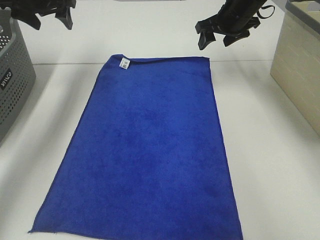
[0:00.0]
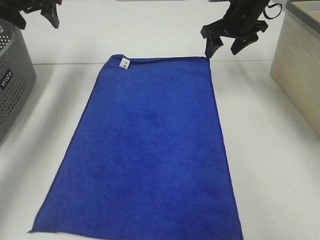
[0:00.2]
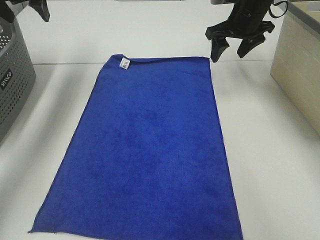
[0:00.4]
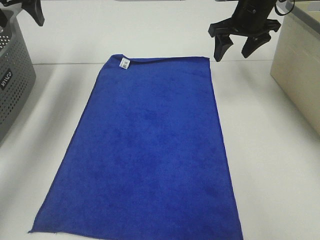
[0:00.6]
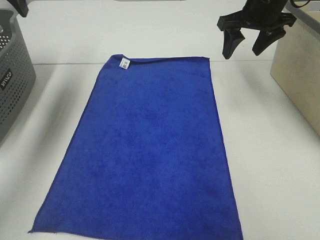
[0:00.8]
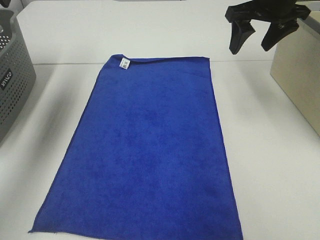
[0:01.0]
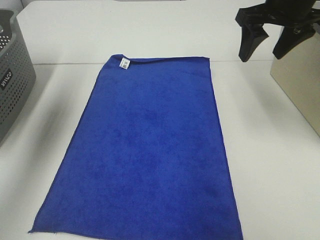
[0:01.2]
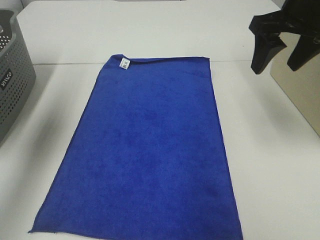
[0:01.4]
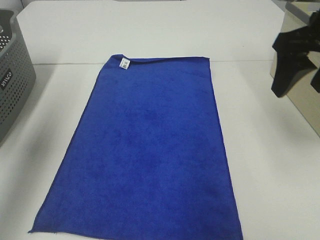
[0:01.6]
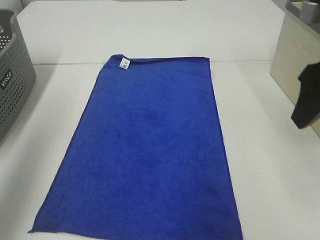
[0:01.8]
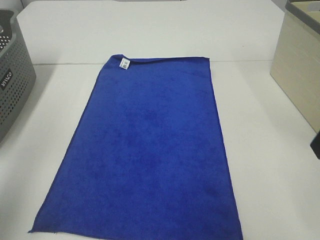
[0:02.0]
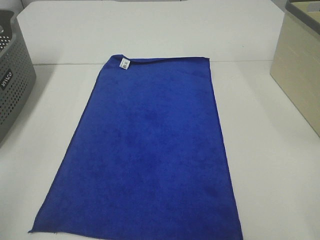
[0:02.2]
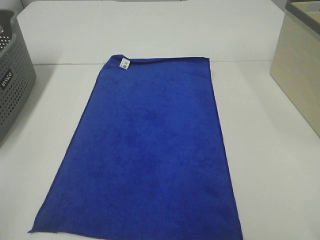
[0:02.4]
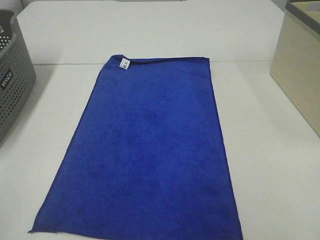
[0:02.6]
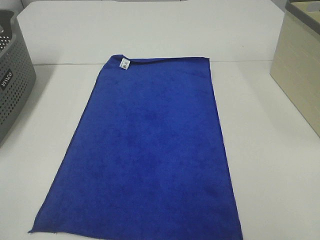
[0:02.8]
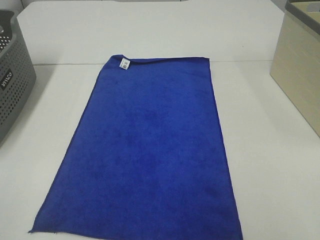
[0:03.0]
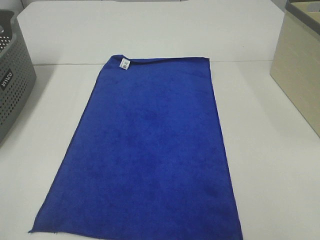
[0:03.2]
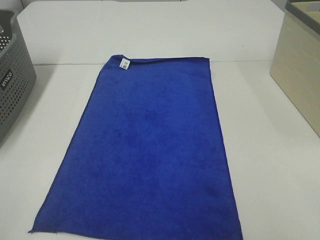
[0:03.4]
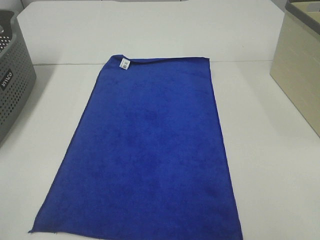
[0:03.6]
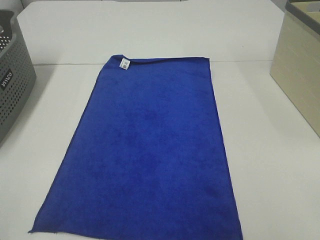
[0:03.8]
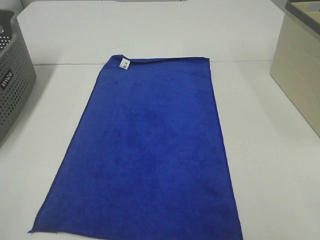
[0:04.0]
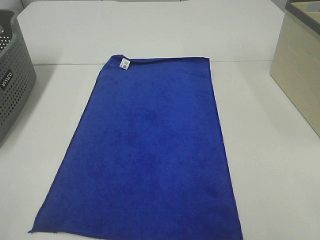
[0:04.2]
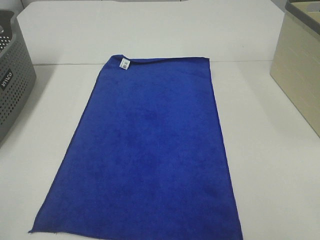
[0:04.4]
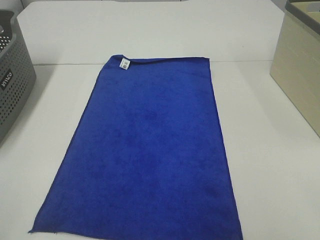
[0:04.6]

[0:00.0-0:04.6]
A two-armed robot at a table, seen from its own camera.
Task of the whole recording: Remove the towel and place it.
0:00.0 to 0:01.6: Both grippers travel together backward, approximately 25 cm.
0:01.6 to 0:03.0: The two grippers go some 25 cm backward.

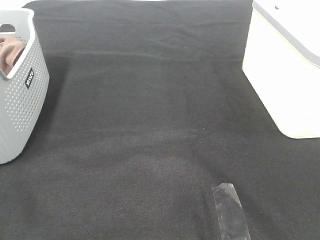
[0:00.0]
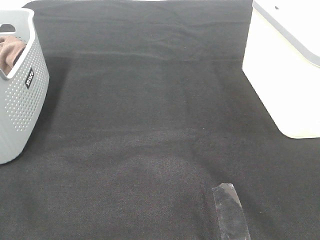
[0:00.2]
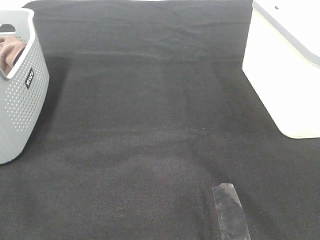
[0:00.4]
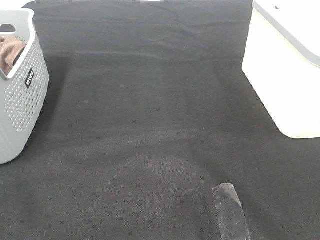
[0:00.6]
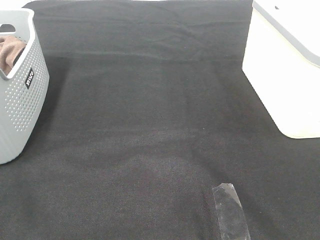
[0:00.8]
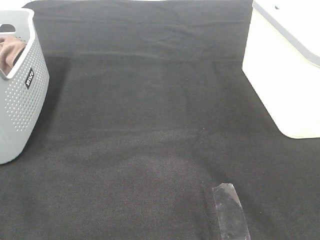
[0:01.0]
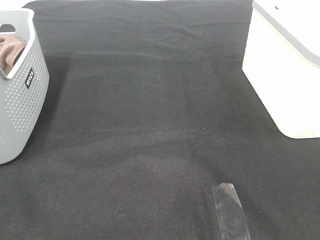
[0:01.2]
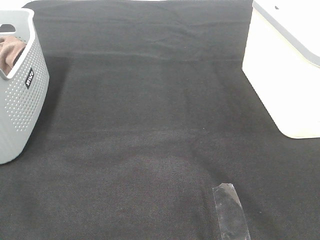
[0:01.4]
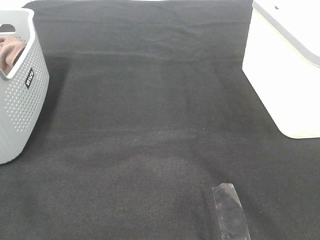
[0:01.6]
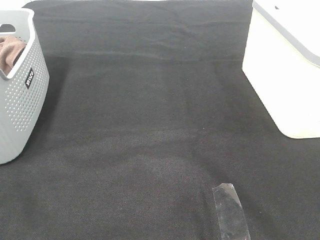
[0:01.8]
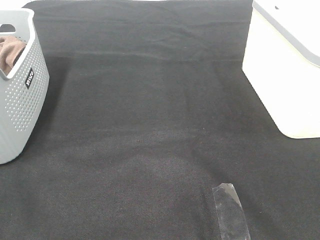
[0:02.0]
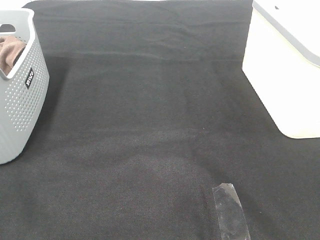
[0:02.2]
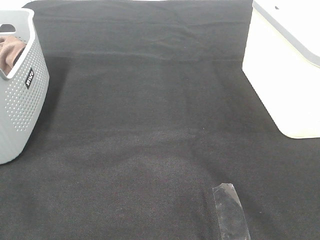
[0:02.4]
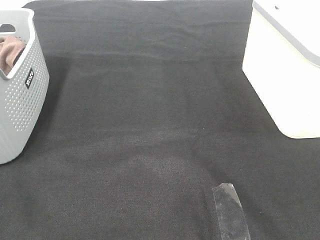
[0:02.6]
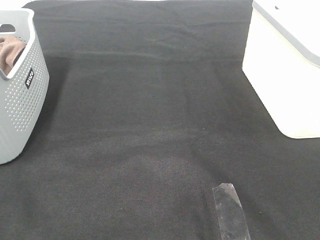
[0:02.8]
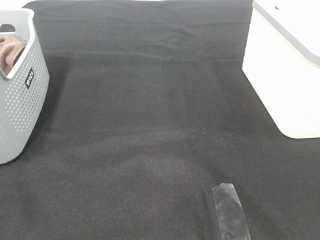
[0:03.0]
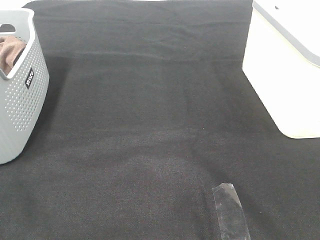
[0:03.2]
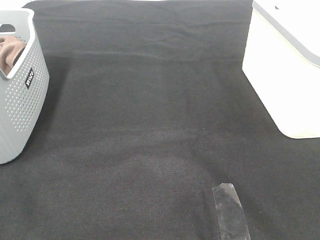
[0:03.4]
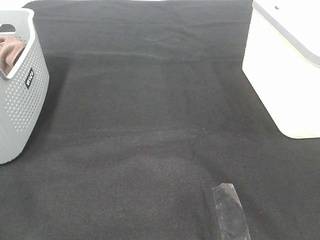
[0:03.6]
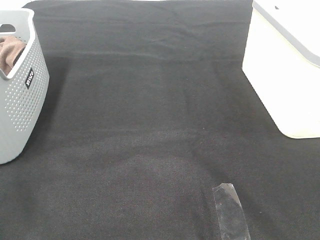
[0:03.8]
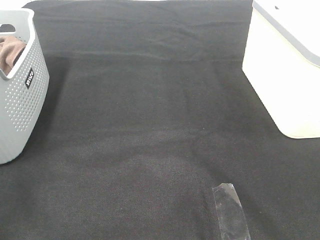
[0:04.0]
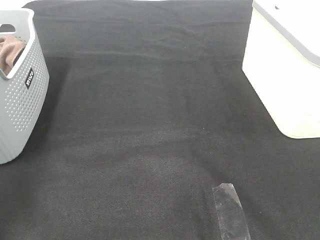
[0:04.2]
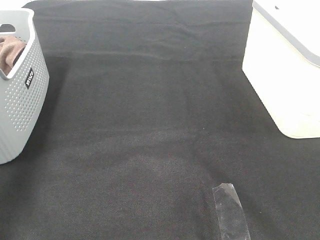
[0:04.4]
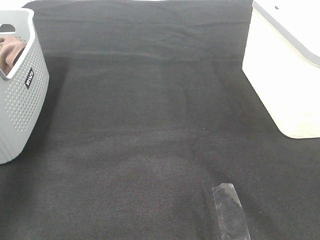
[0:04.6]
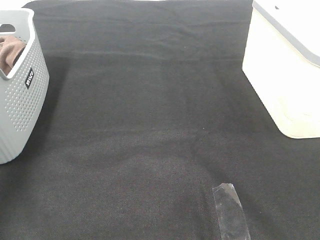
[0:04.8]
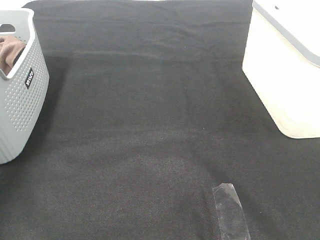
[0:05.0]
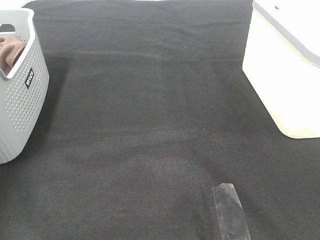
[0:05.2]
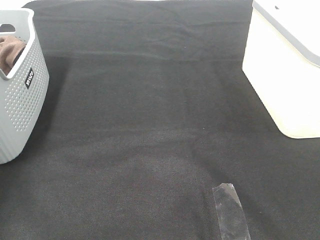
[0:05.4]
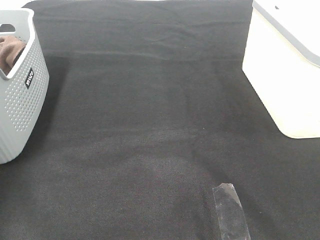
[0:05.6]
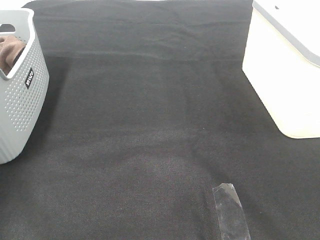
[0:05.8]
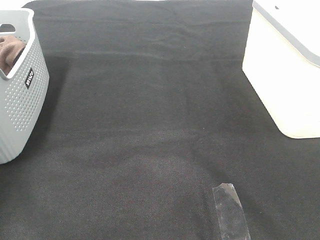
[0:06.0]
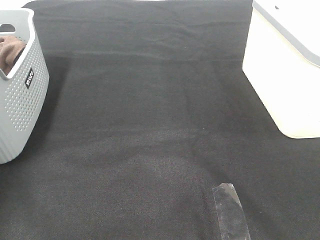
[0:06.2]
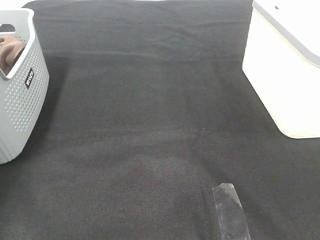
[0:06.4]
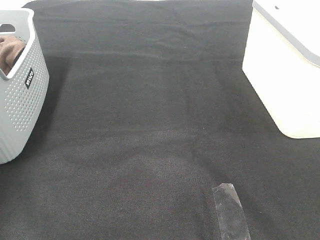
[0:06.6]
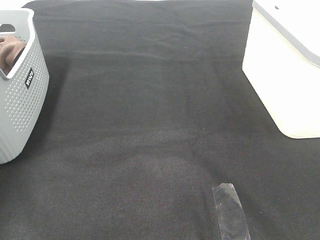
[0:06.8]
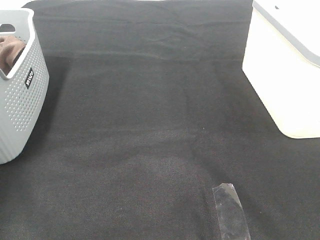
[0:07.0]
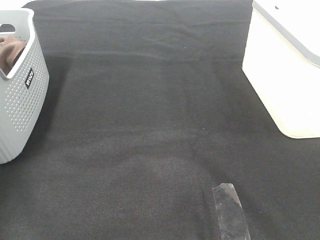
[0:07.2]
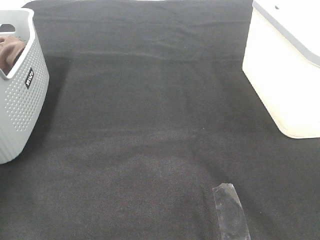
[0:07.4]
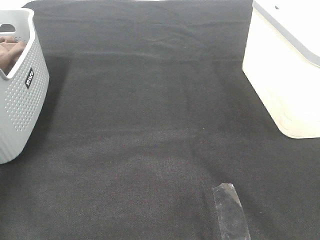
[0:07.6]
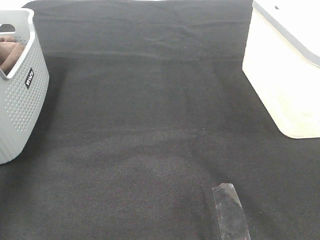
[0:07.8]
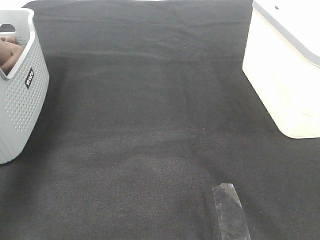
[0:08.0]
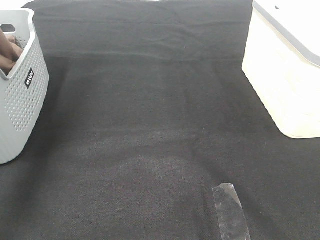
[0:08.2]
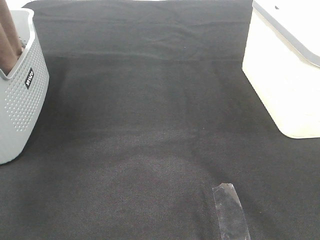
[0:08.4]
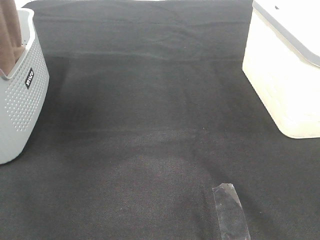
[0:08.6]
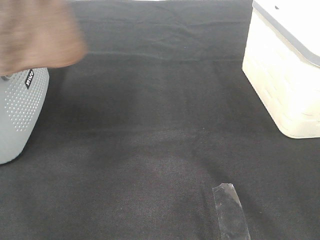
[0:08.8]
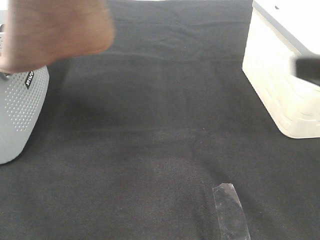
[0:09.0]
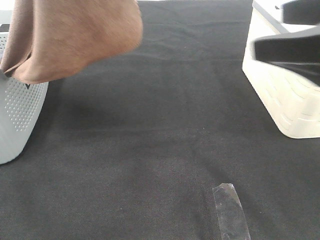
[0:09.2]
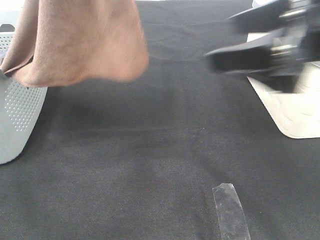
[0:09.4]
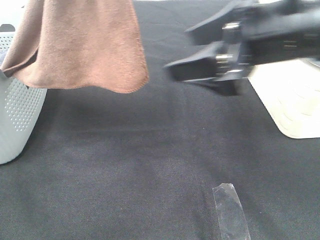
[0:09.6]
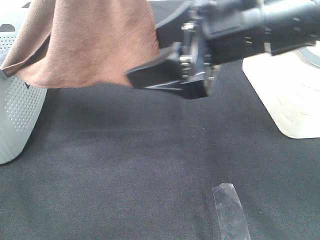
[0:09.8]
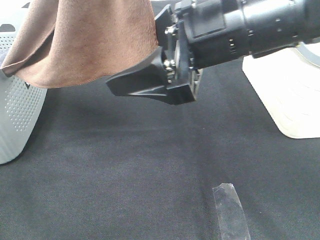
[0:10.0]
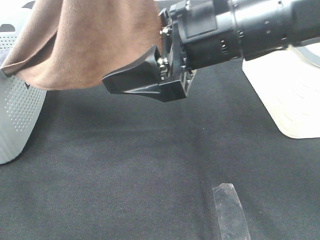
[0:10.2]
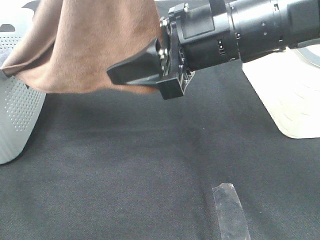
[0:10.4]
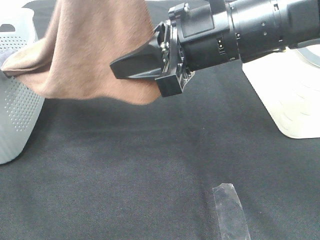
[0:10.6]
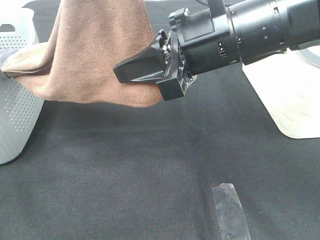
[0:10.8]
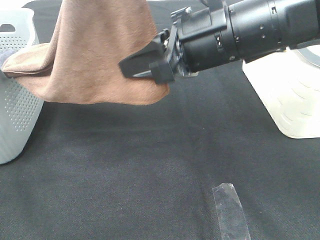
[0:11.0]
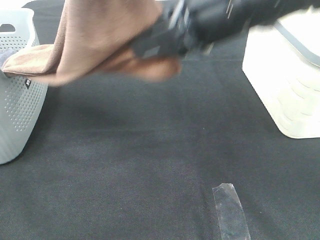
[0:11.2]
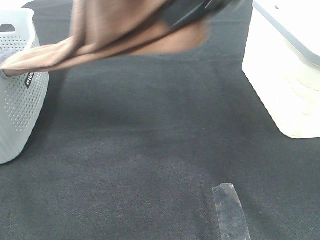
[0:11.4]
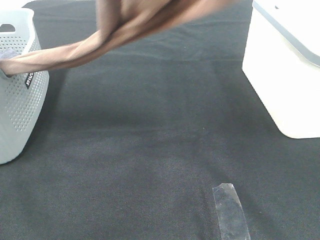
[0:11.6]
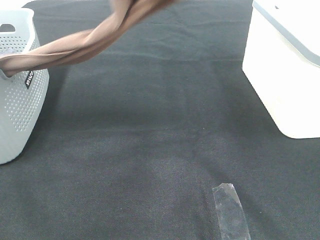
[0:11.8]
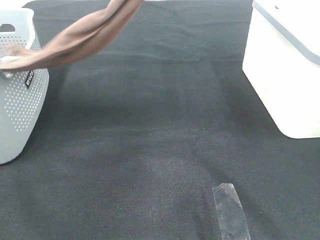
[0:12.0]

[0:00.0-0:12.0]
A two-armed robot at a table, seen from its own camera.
Task of the whole recording: Remove the towel and place it.
Step, 0:07.8 to 0:10.8: Right hand: grab a corner of the brown towel and straighten it.
0:00.0 to 0:03.0: Both grippers stay about where they are.
0:03.0 to 0:04.4: The left gripper travels forward and upward by about 25 cm.
0:07.6 to 0:09.0: The left gripper shifts about 30 cm to the right, upward and backward; the right gripper shifts roughly 15 cm forward.
0:09.0 to 0:10.4: The right gripper is displaced to the left and forward by some 20 cm, and closes; the left gripper is displaced to the right by some 5 cm.
0:10.4 to 0:12.0: The left gripper shifts about 10 cm to the left and forward; the right gripper travels upward by approximately 20 cm, and closes up.

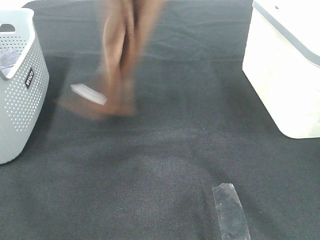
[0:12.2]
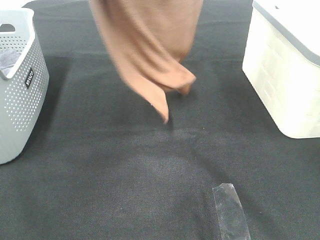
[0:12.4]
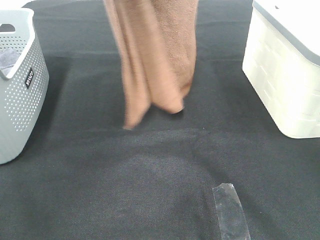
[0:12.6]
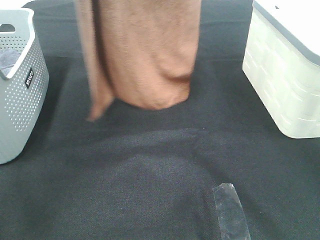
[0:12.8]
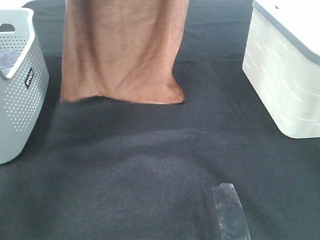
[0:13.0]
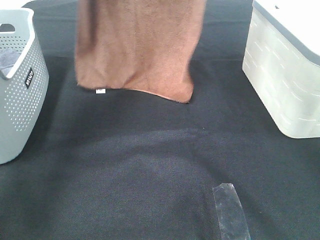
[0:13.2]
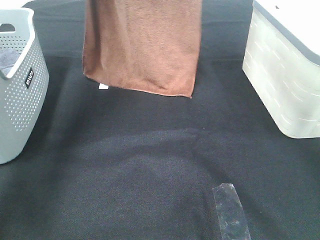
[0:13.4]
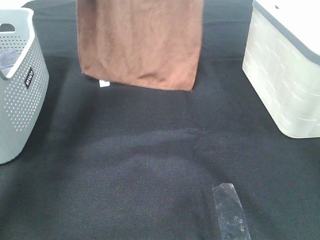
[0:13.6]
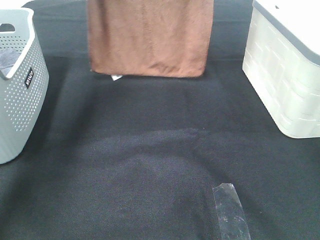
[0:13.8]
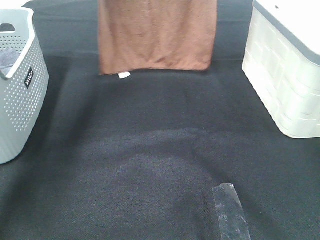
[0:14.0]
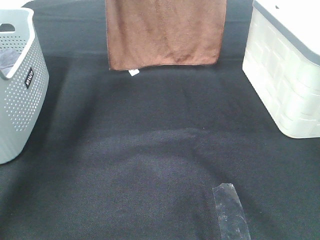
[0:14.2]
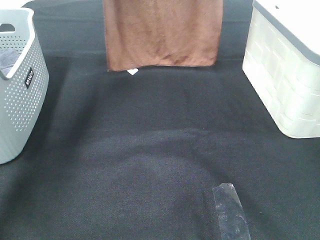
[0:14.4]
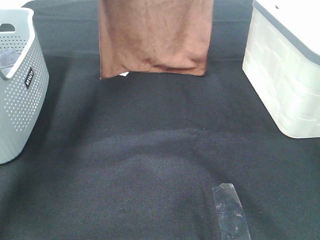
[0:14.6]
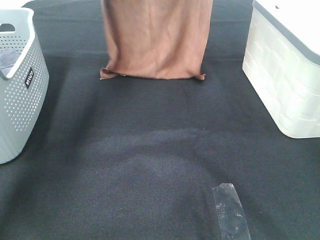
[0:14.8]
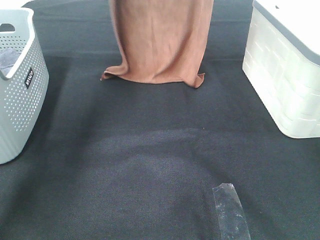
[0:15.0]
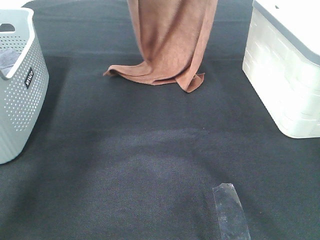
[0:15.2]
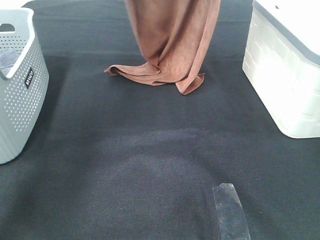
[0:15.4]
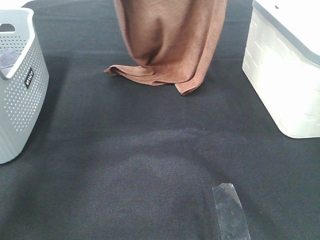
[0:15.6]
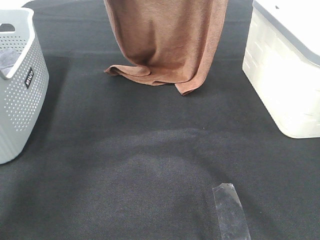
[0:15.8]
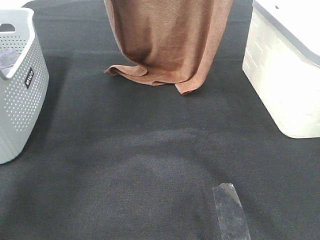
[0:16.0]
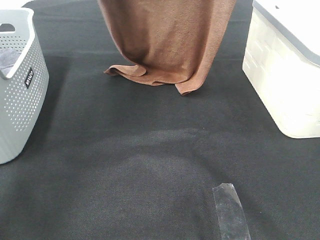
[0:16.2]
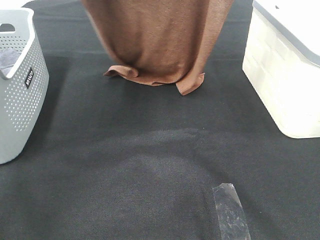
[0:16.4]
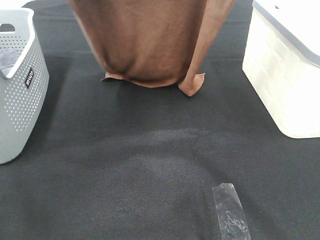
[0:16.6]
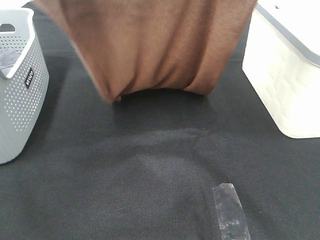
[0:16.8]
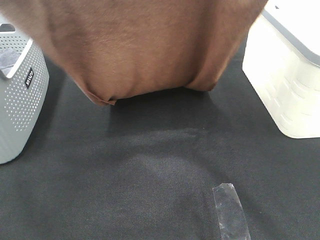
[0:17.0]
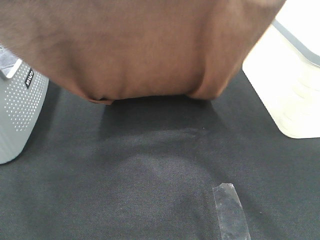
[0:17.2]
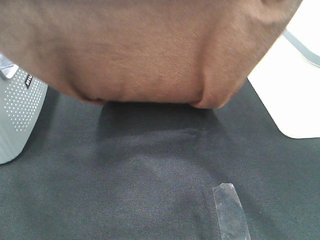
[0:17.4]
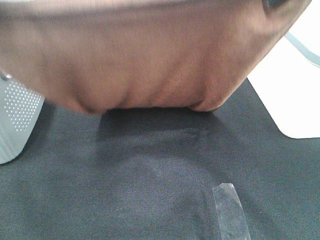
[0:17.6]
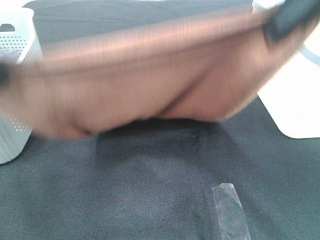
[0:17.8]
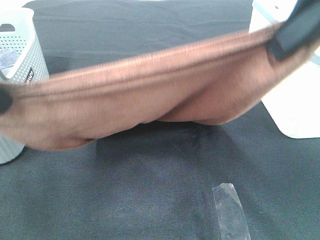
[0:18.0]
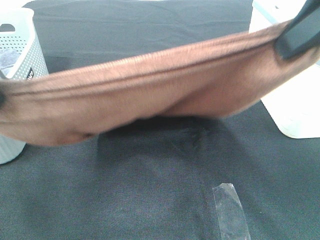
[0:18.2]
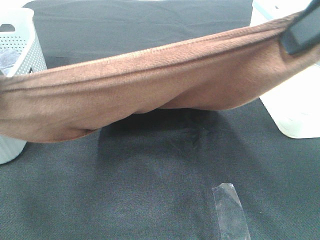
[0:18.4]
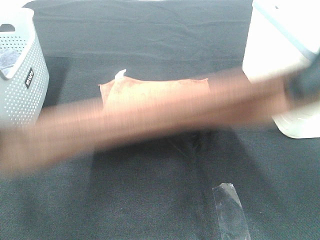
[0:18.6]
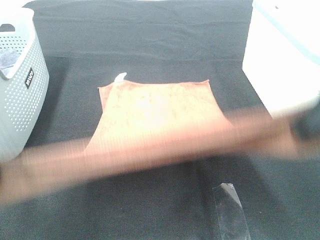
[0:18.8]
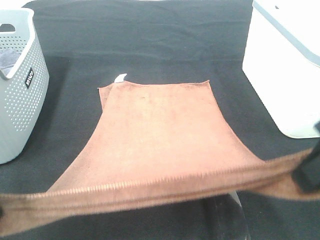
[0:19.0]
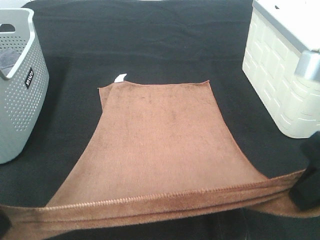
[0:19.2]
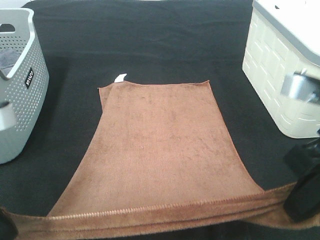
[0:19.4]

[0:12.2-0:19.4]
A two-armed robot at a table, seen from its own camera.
Task of the whole recording: Remove the towel and place it.
Step, 0:12.2 to 0:17.6: Left hand: spread the brown towel flat on the table.
Step, 0:12.2 to 0:17.6: Right hand: spread the brown towel flat on the table.
0:12.2 to 0:13.6: The right gripper goes roughly 10 cm forward; the left gripper is displaced forward and downward by roughly 20 cm.
0:13.6 to 0:15.0: The left gripper shifts roughly 5 cm downward. The right gripper shifts by approximately 5 cm.
0:15.0 to 0:16.6: Both grippers move backward, about 20 cm.
0:16.6 to 0:18.0: Both grippers travel together backward and downward, roughly 15 cm.
0:18.0 to 0:19.4: Both grippers travel together downward, approximately 10 cm.
